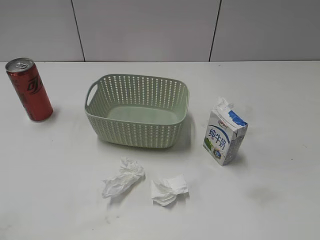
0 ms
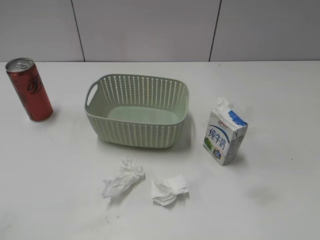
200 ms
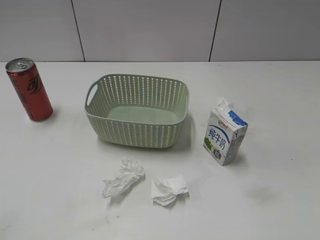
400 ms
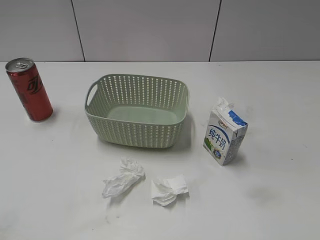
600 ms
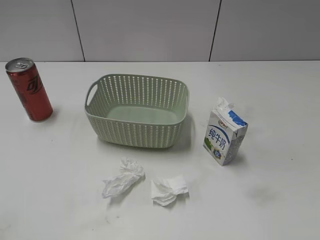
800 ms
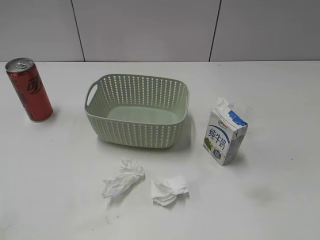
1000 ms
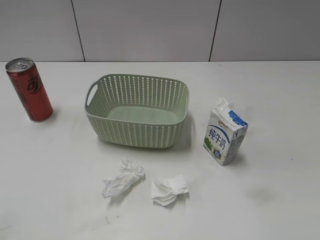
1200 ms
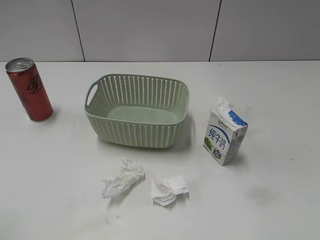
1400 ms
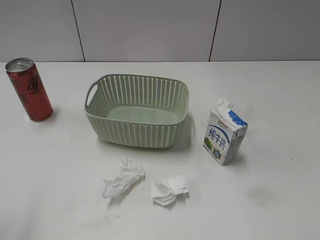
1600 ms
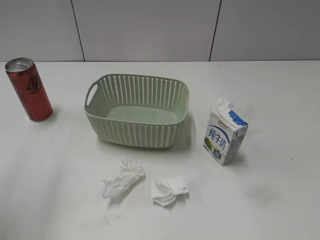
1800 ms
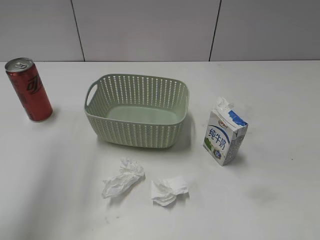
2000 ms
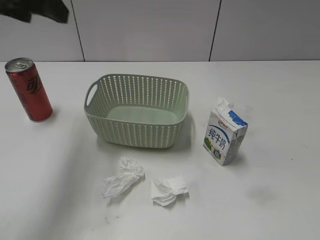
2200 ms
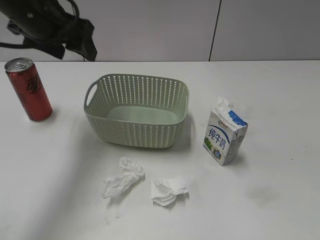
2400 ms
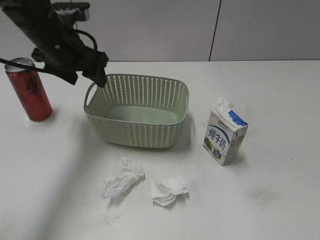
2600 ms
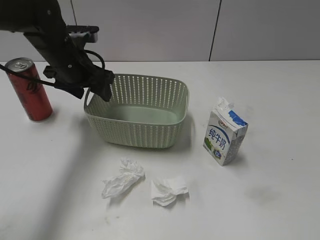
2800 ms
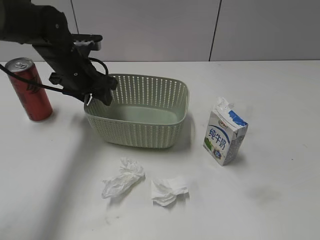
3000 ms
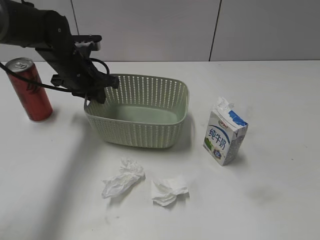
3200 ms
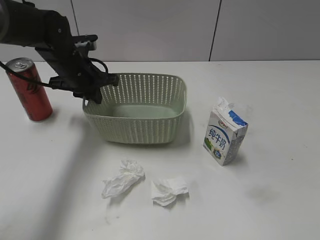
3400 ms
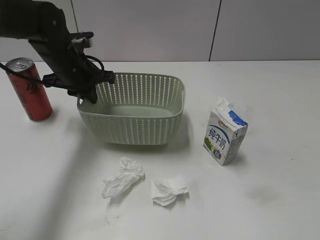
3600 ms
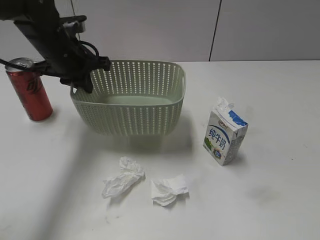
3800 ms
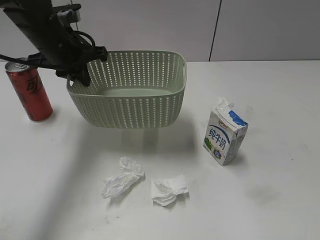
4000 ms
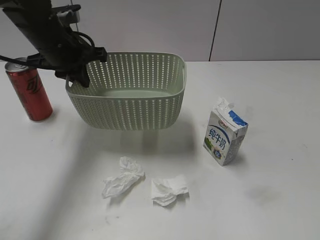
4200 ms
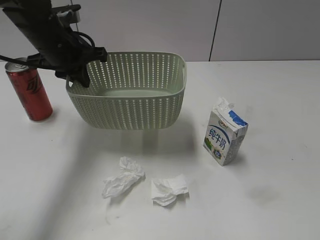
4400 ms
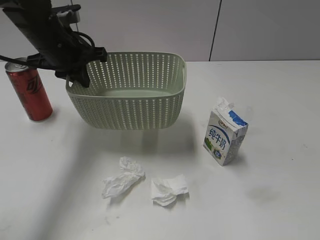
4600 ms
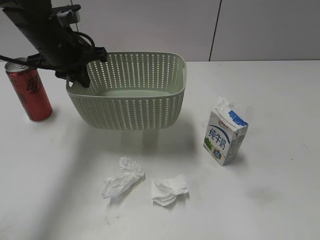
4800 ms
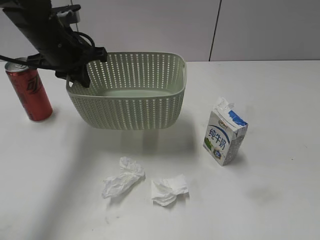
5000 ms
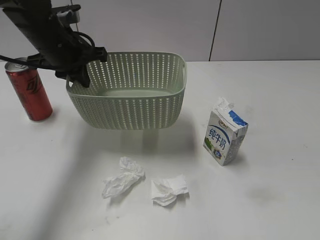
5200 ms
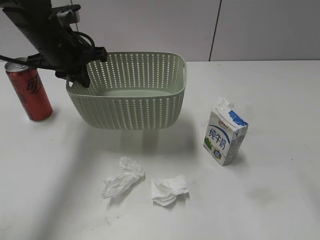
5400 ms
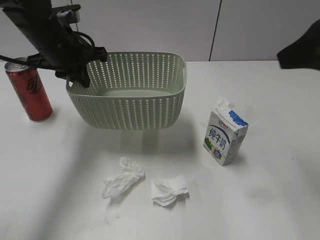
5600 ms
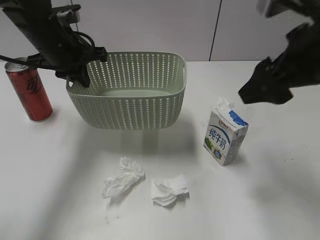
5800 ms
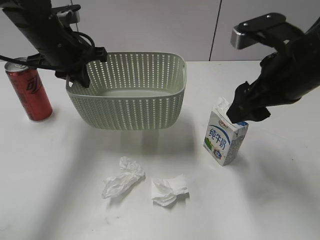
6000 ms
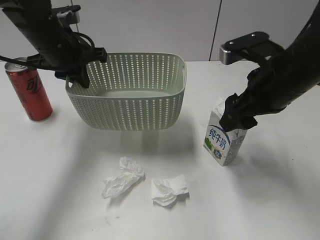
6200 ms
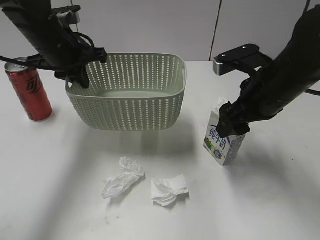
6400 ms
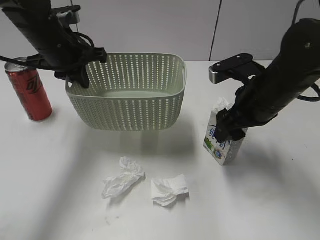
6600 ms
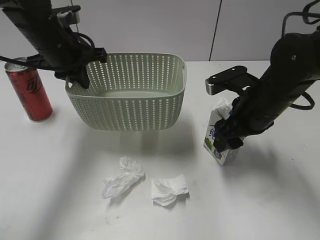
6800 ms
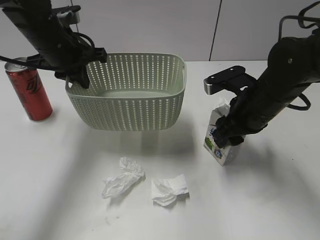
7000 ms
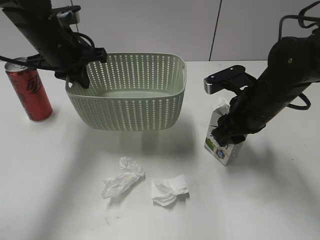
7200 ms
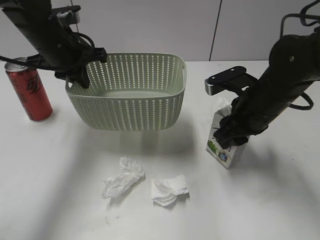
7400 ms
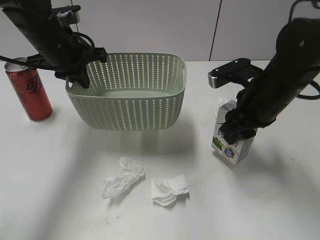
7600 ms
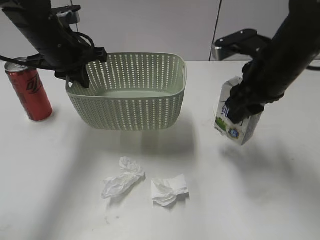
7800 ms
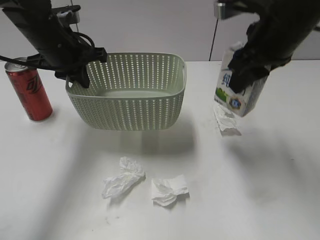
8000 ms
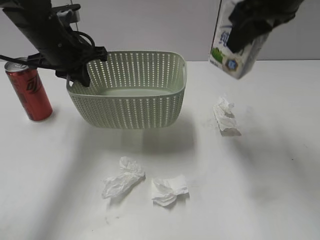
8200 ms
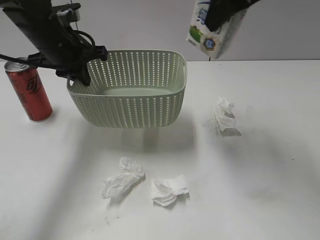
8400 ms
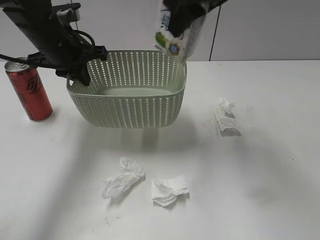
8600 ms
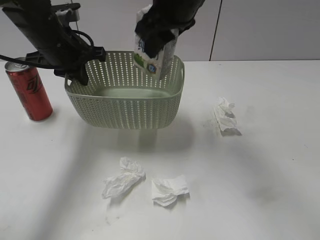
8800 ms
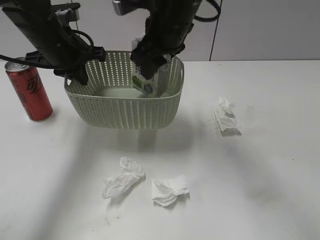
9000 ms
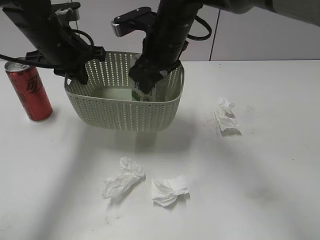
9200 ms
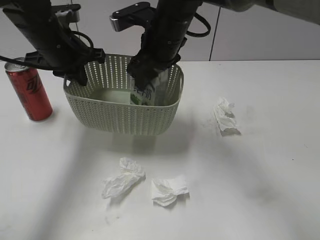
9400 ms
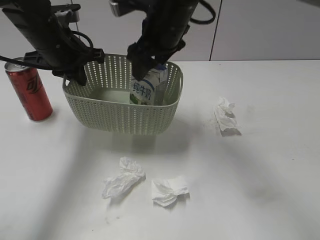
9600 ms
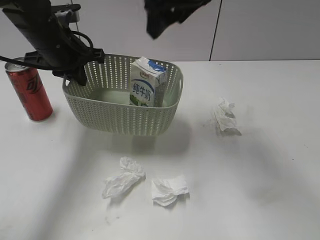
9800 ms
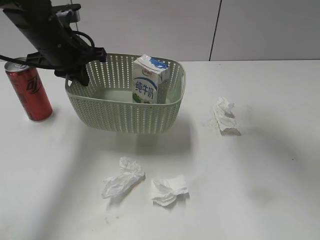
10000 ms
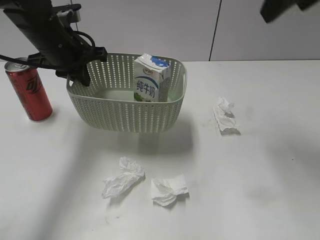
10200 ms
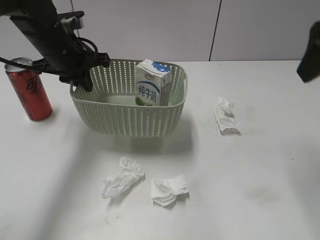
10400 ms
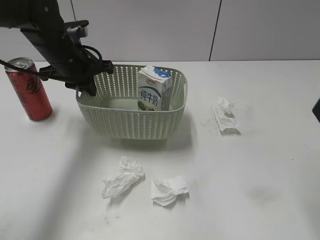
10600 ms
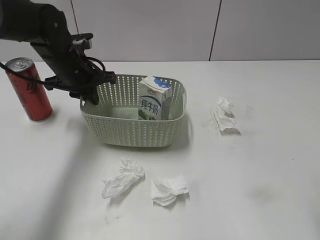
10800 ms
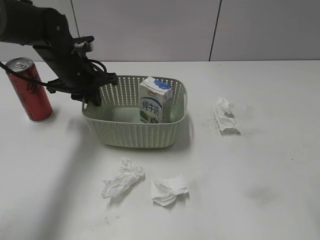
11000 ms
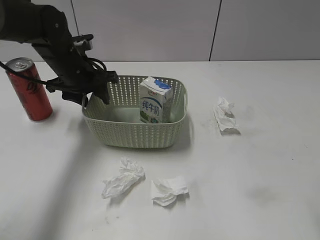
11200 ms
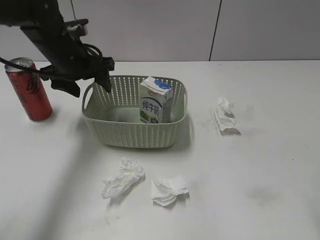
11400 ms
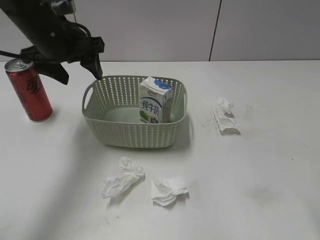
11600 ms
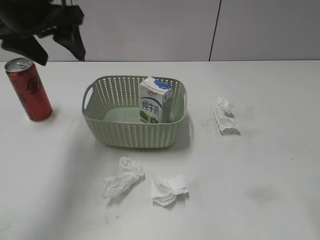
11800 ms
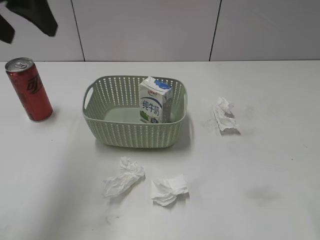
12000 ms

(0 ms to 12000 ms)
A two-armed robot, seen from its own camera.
Step, 2200 ms - 3400 ms: Grasp the basket with left gripper.
Step, 3600 ms - 4000 ms: Lift the basket with left gripper.
Step, 4200 ms - 7000 ms: Grasp the milk with right gripper.
Step, 7200 ms - 9600 ms: Place the milk in the basket with right gripper.
Step, 9800 ms - 11600 ms: Place the basket on the table with left gripper.
1600 ms - 3000 ms: The left gripper shifts approximately 40 cm forward, downward and to the right.
3000 ms - 4400 ms: The left gripper shifts about 5 cm upward, and closes its fingers.
4400 ms - 6000 ms: The right gripper shifts about 30 cm forward and to the left.
6000 ms - 7600 ms: The right gripper is displaced downward by approximately 10 cm, and closes up.
7600 ms - 9000 ms: The right gripper travels to the left, upward and forward by about 20 cm.
9000 ms - 10400 ms: The right gripper goes approximately 25 cm to the right, upward and backward, and opens its fingers.
10400 ms - 12000 ms: The left gripper shifts approximately 15 cm upward and backward, and opens its fingers. Meanwhile the right gripper moves backward, about 10 cm.

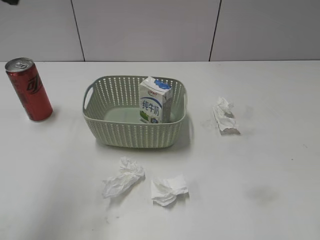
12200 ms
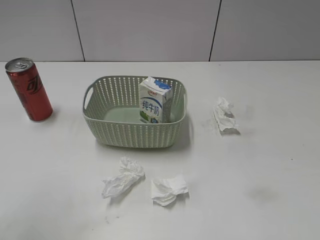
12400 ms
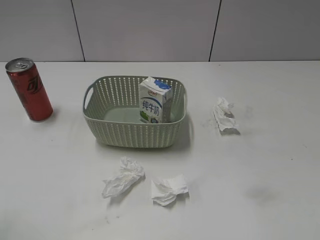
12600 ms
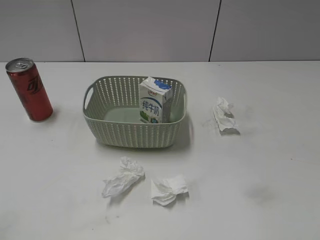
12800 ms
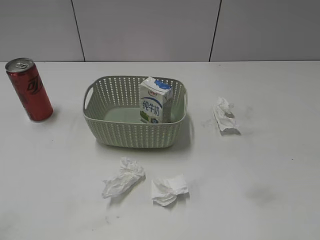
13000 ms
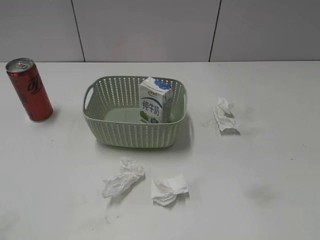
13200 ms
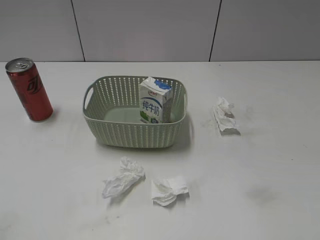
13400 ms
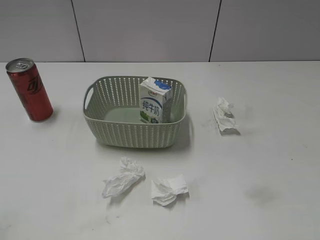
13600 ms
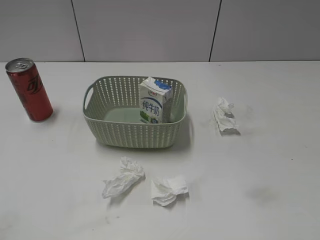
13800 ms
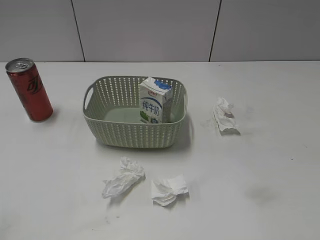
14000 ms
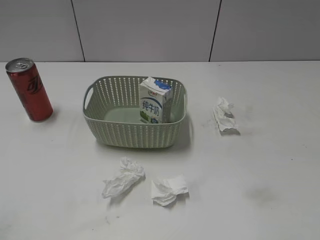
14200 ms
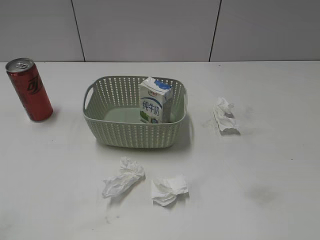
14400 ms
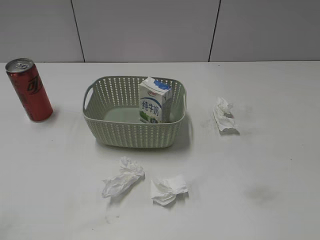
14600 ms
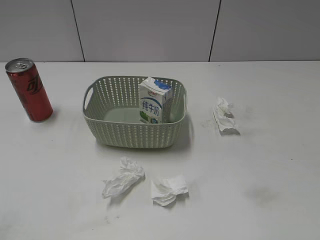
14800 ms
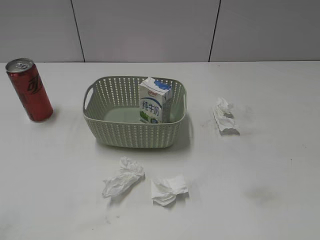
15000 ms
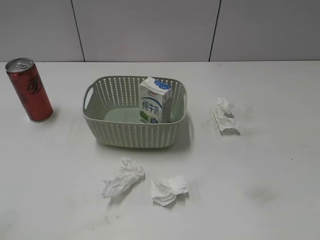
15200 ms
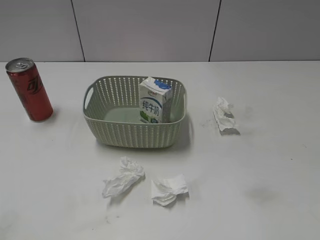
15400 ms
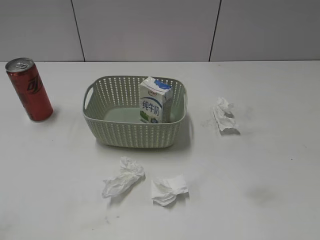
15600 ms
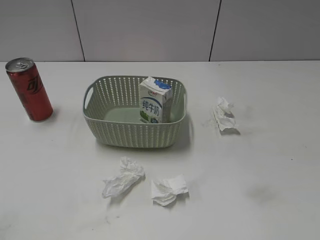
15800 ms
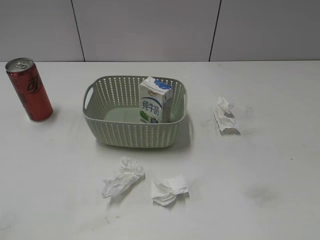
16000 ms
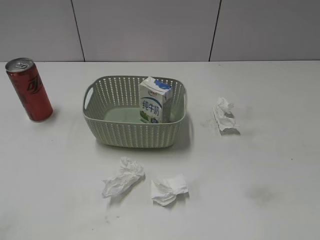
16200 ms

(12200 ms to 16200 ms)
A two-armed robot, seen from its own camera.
12200 ms - 13600 ms: The left gripper heads backward and downward, covering roughly 25 cm.

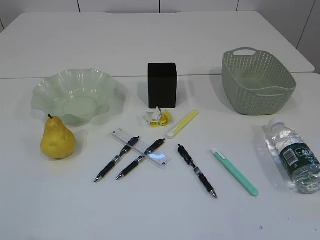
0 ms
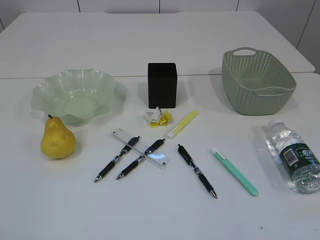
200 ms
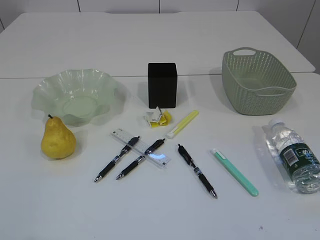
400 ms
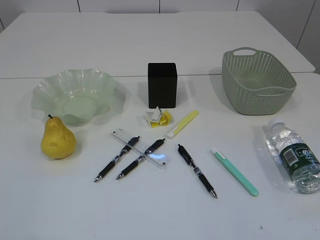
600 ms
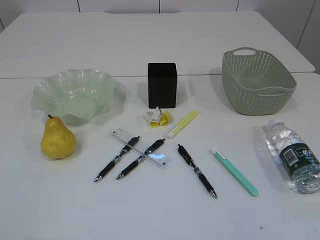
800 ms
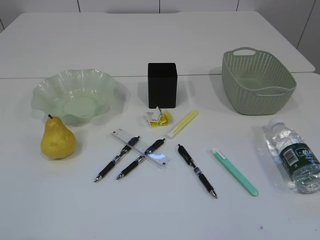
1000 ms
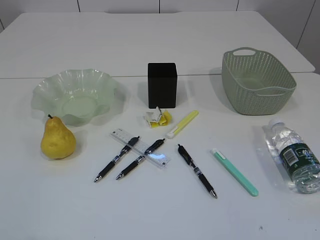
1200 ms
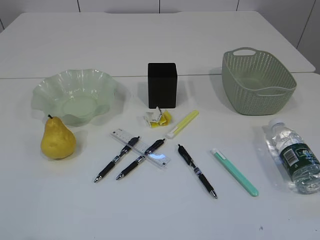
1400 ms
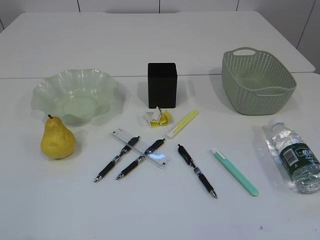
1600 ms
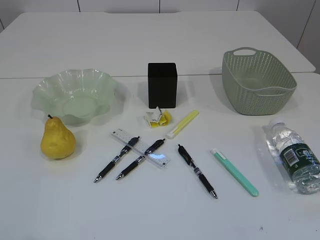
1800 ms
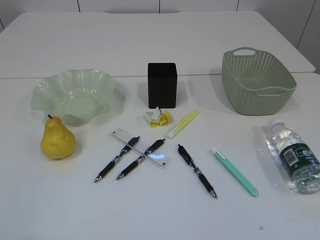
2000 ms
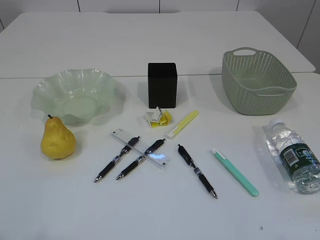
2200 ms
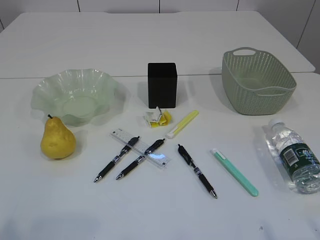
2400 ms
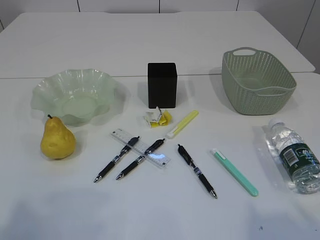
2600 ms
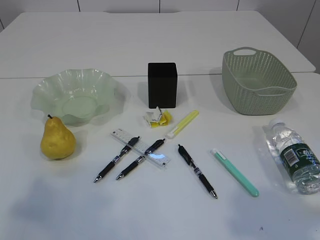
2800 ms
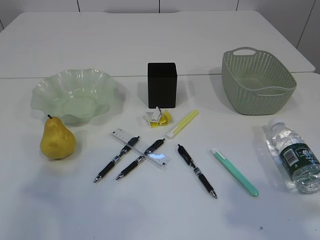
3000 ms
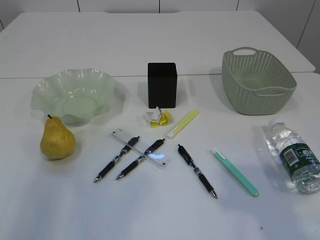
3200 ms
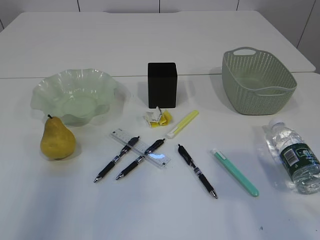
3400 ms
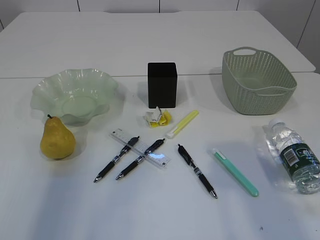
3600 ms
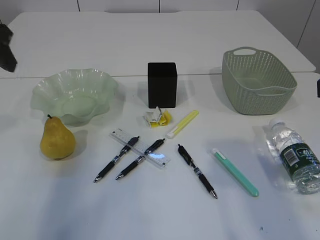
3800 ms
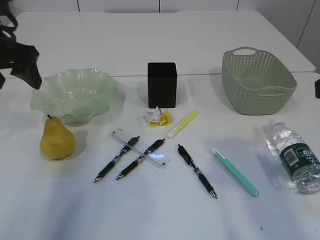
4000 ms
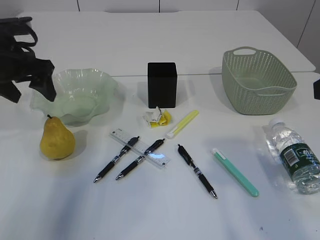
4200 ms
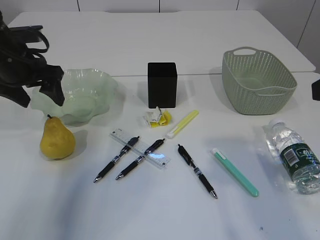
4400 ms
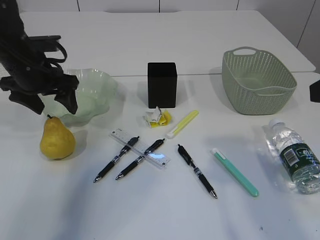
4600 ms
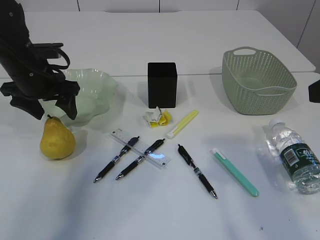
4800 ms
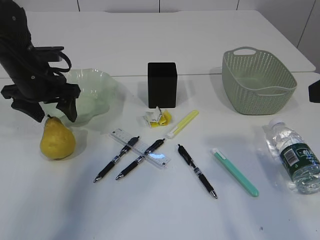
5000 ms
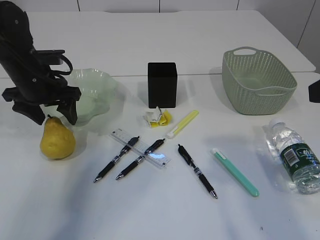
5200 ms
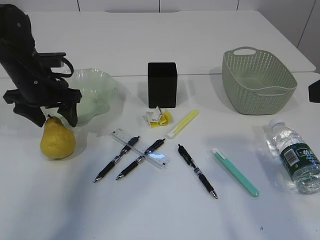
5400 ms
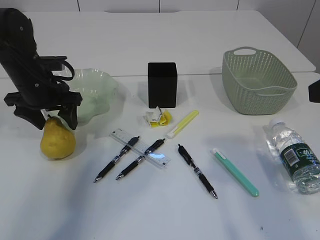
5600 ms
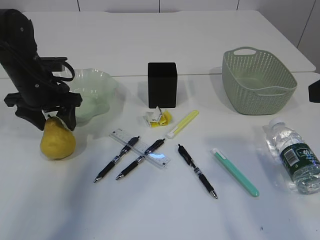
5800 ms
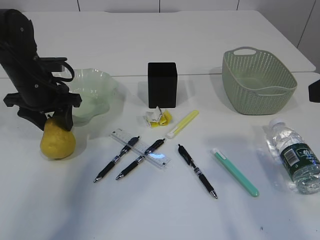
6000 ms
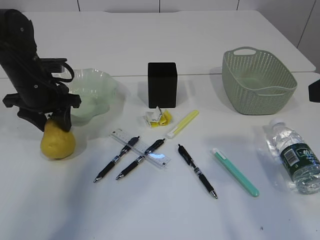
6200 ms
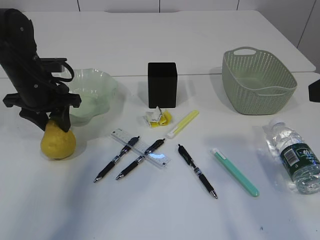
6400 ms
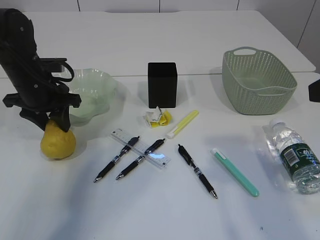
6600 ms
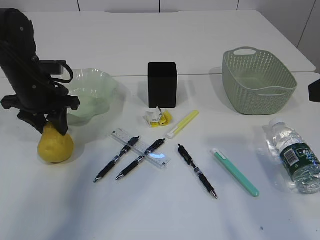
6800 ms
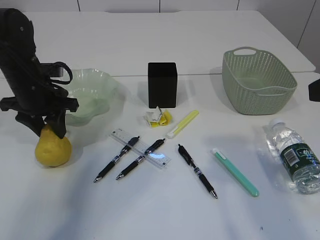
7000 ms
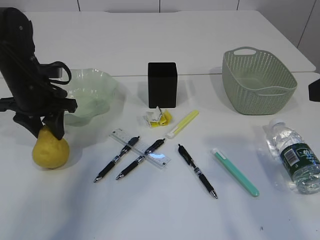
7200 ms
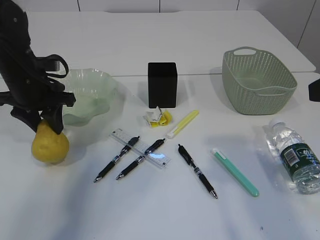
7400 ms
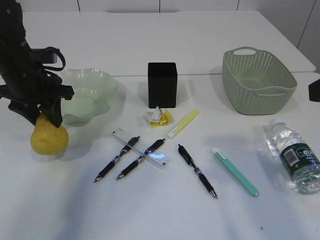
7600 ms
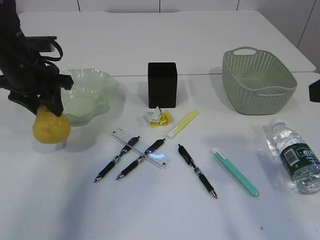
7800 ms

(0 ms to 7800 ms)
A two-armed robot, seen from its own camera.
1600 ms - 3200 ms: Both grippers travel together forward and upward, roughly 15 cm.
3200 ms - 4600 ms: The left gripper goes about 30 cm forward and downward, and opens. The right gripper travels forward by about 10 cm.
4600 ms - 6200 ms: The left gripper closes up.
6200 ms - 7800 ms: The grippers stay close to where they were, moving slightly.
